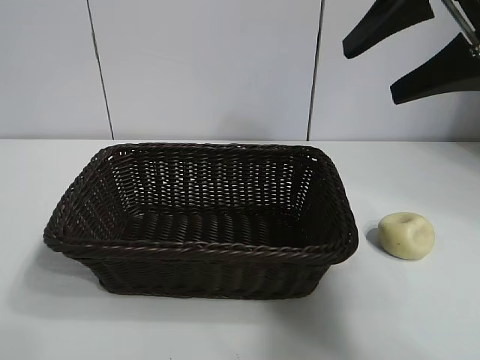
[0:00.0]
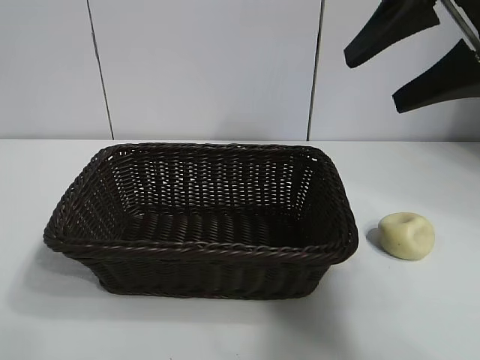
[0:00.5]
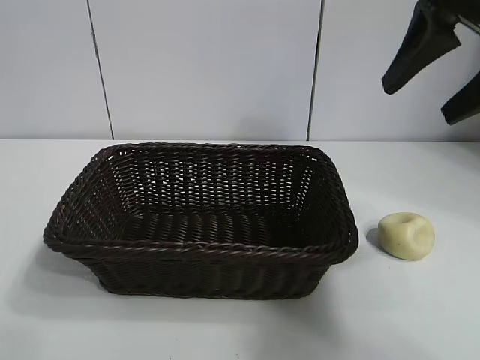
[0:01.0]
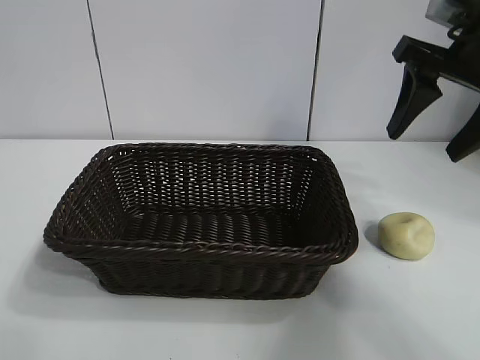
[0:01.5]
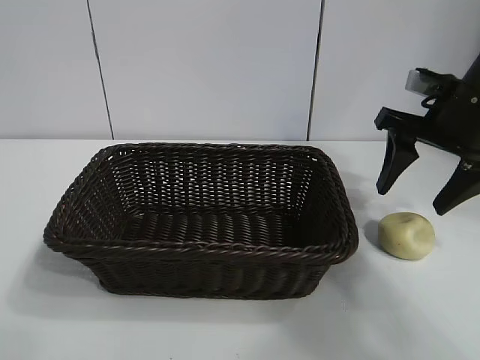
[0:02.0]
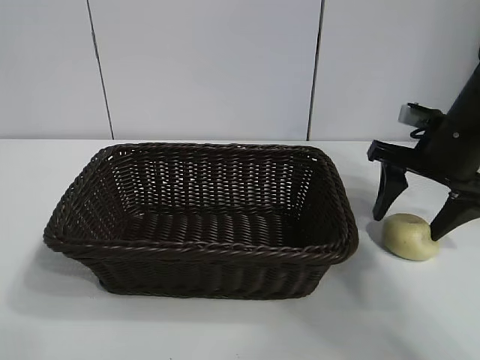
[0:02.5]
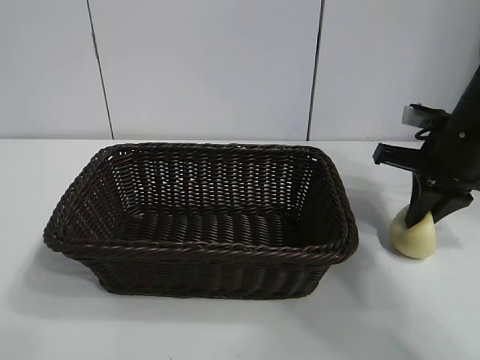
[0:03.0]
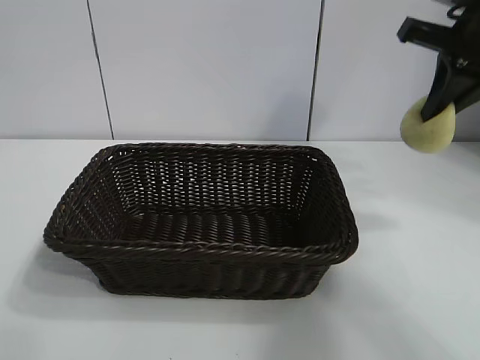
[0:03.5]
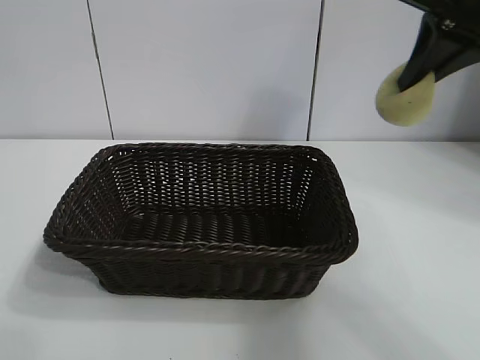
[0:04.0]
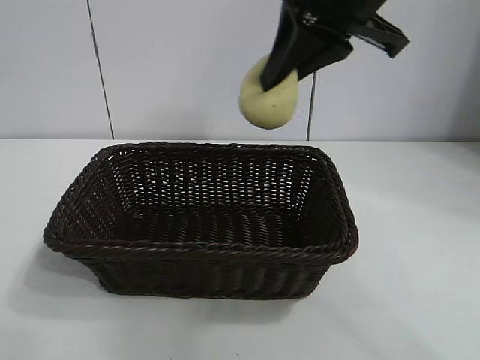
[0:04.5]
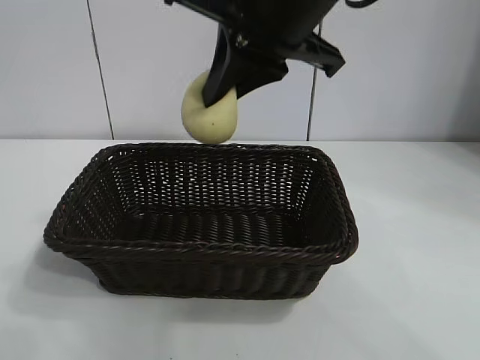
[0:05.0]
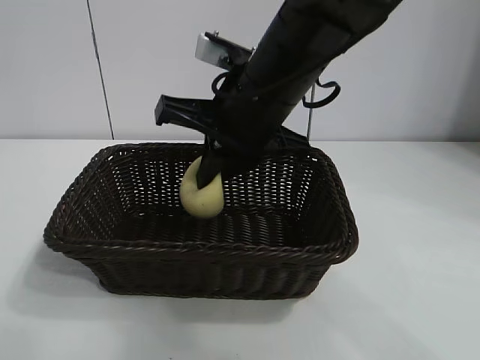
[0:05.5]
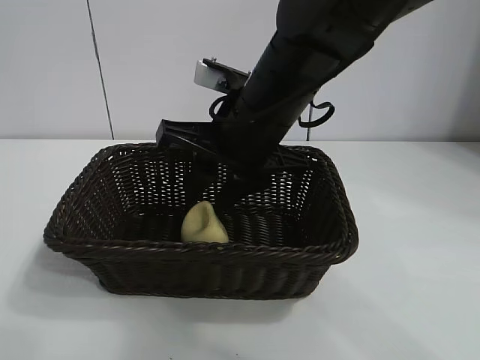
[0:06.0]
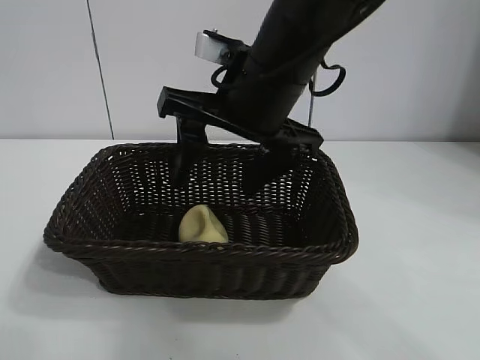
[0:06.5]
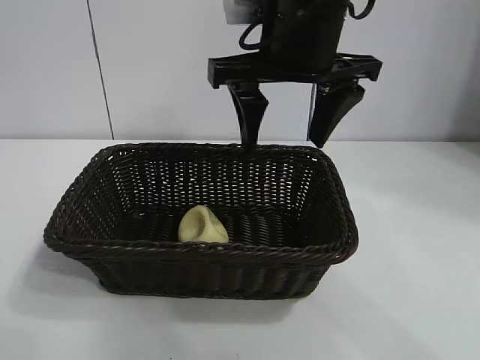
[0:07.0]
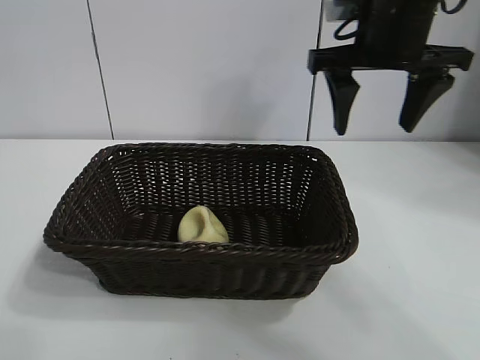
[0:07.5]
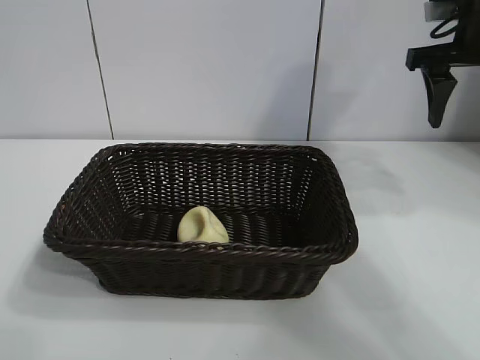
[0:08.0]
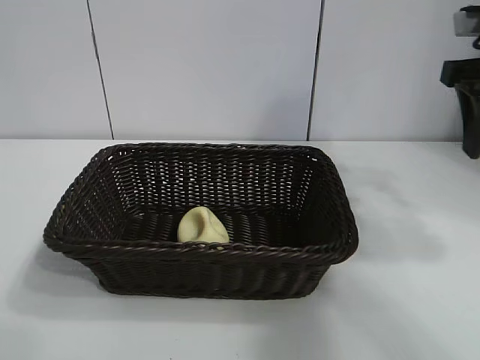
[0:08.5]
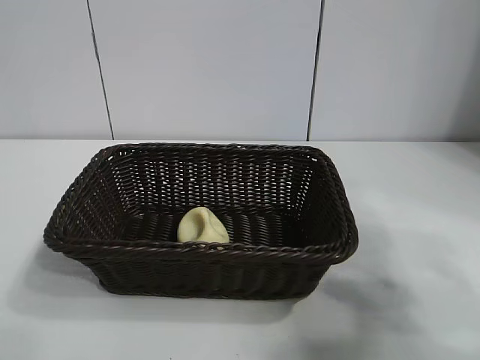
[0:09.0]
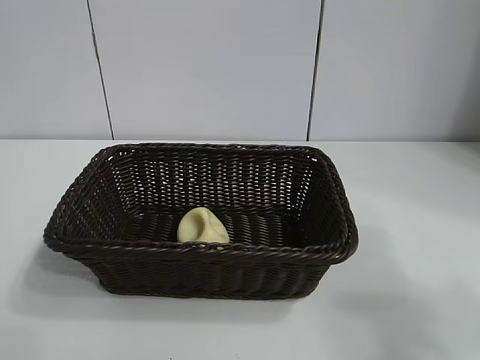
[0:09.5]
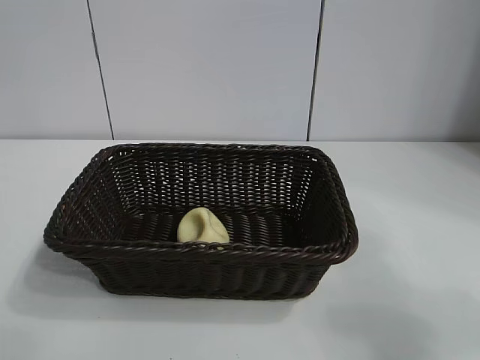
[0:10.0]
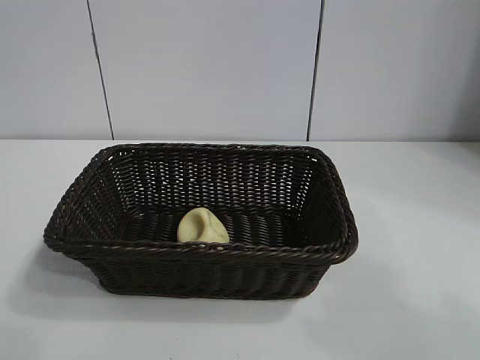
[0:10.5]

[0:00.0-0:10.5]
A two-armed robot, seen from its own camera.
Task of the whole recording: pick up the egg yolk pastry and put it into the basket.
Step, 0:00.0 to 0:02.5: Grasp egg yolk pastry with right gripper.
Step, 0:03.0 to 0:06.0: Place the egg yolk pastry in the basket with right gripper.

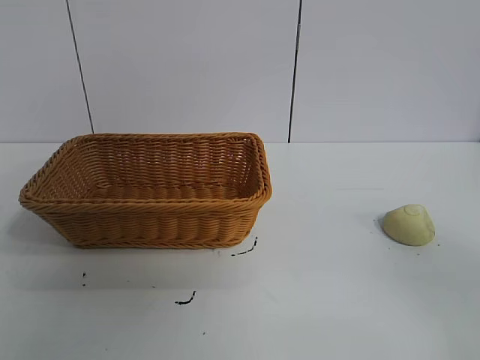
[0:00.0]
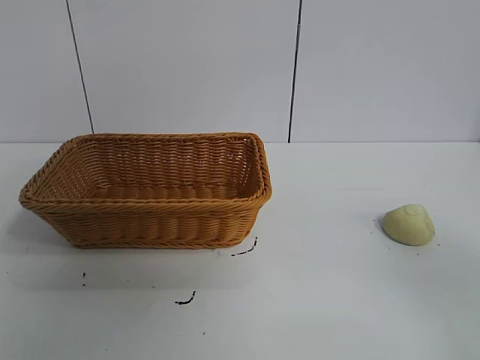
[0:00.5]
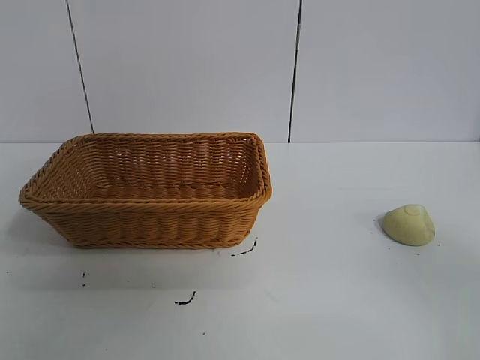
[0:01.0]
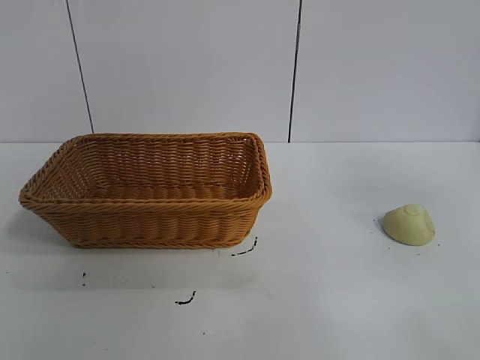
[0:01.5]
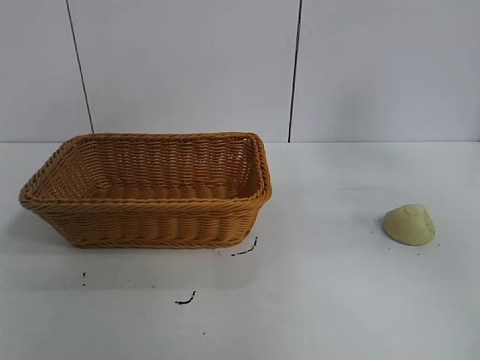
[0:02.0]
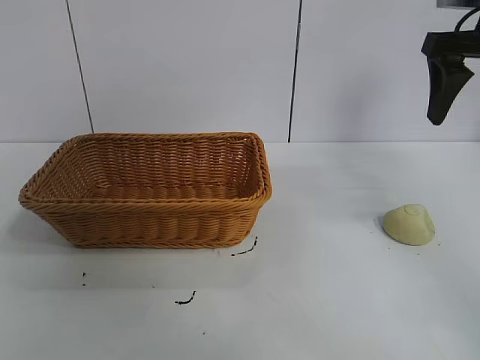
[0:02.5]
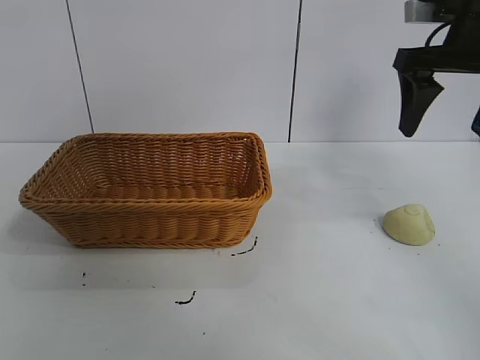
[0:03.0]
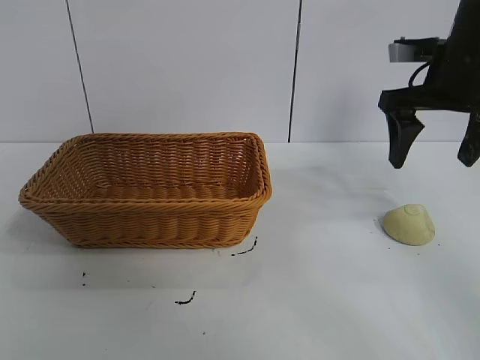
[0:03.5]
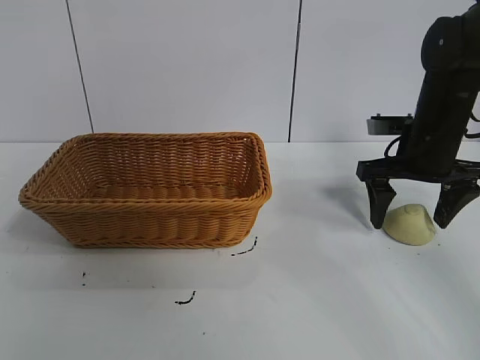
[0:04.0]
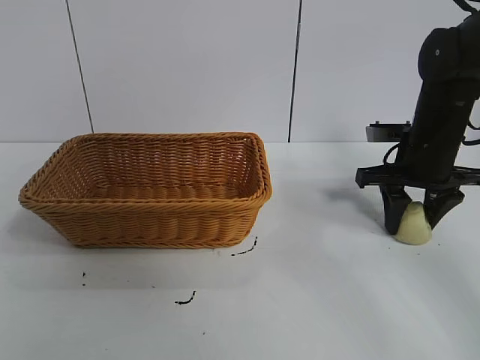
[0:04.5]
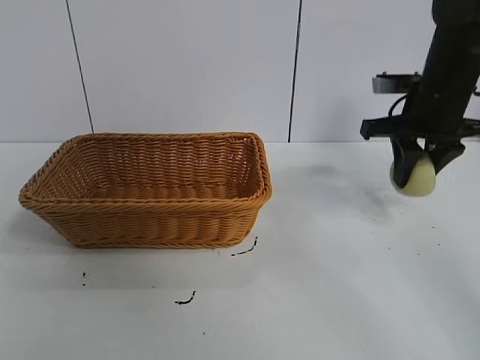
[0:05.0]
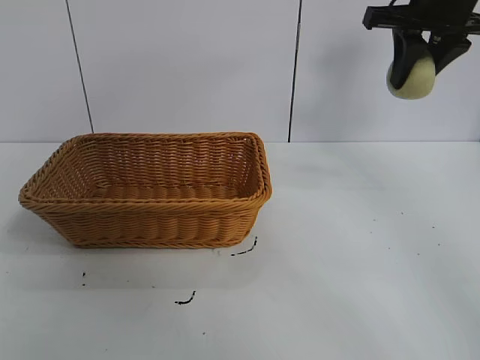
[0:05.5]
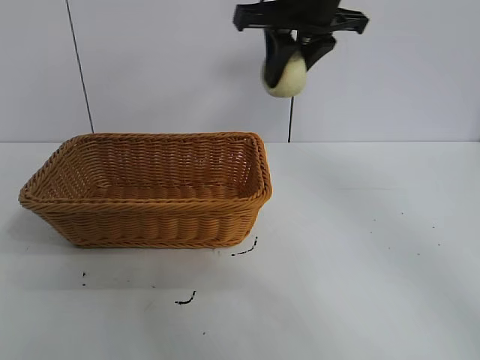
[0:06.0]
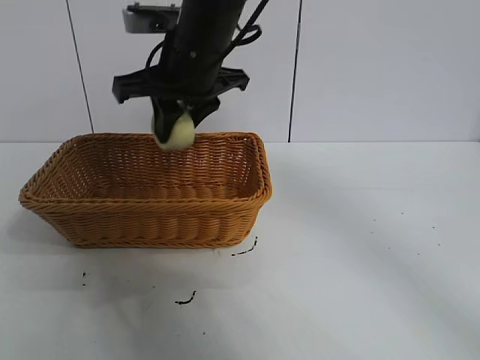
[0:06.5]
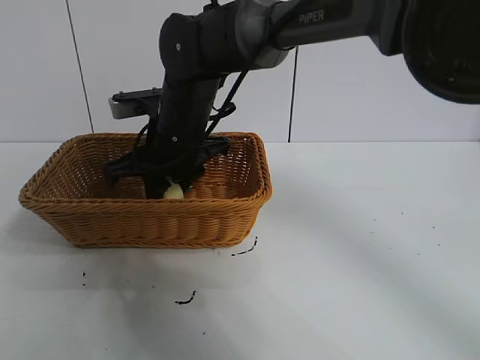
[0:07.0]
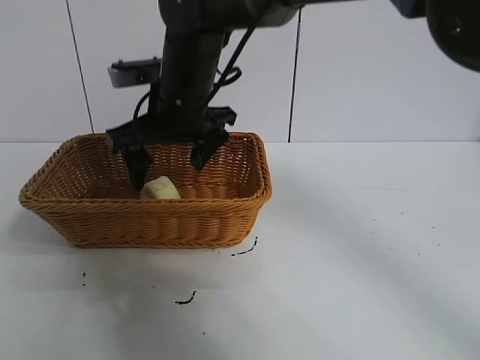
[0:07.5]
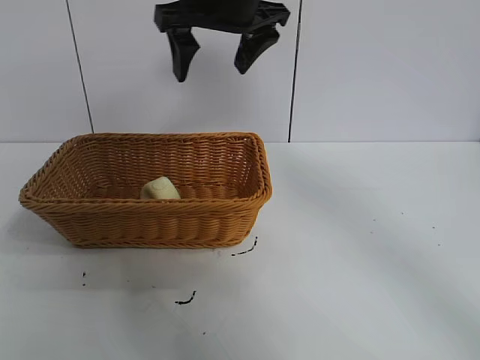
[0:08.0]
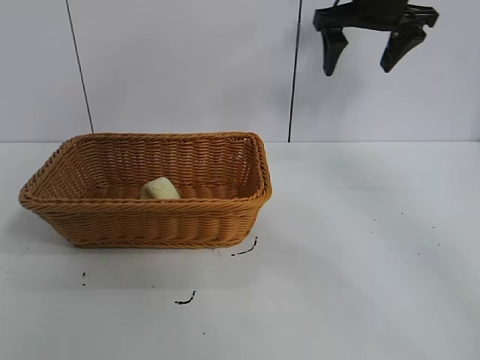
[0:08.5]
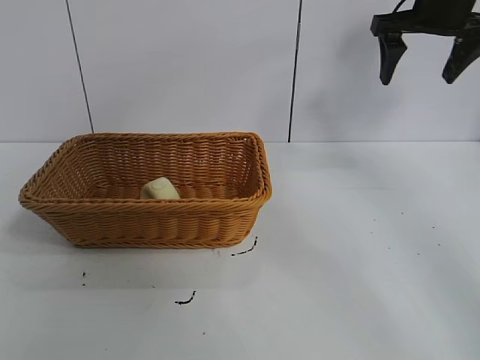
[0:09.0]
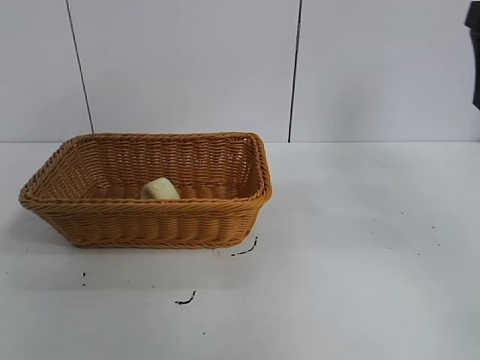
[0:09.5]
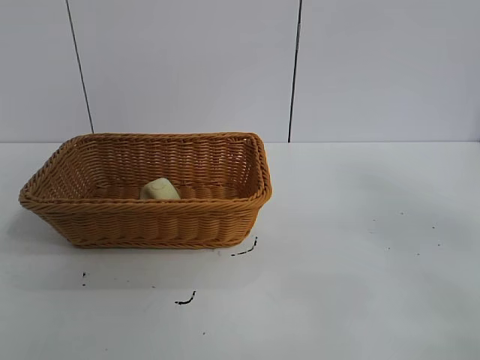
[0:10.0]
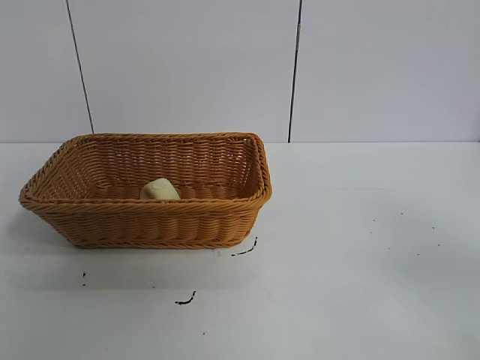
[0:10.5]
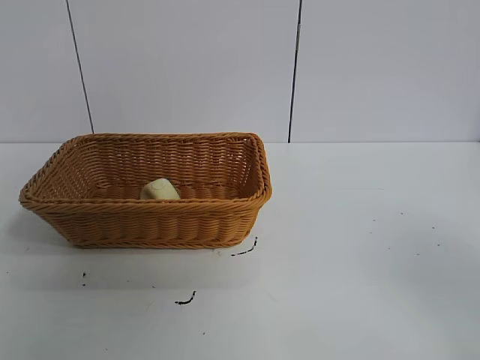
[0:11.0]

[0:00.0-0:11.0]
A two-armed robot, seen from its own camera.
Task of the whole recording: pick up the egg yolk pastry and put it into the basket.
Step, 0:01.0 to 0:04.5: Grasp egg yolk pastry with right gripper.
Step, 0:05.0 to 0:07.0: Place the egg yolk pastry in the basket with right gripper.
